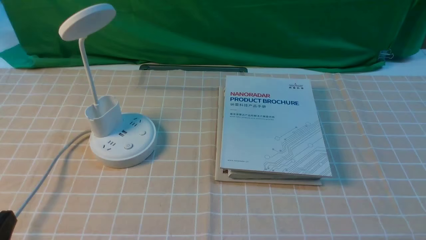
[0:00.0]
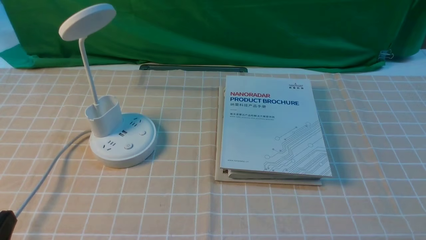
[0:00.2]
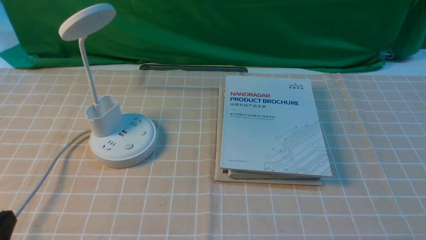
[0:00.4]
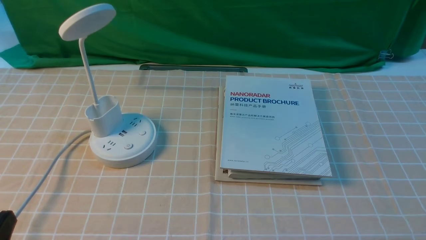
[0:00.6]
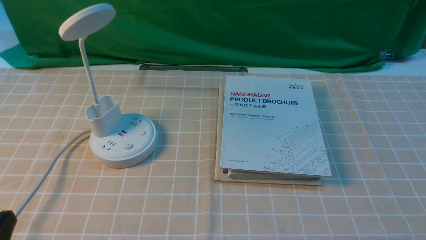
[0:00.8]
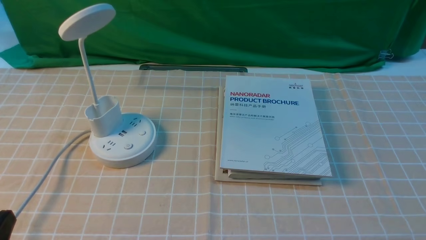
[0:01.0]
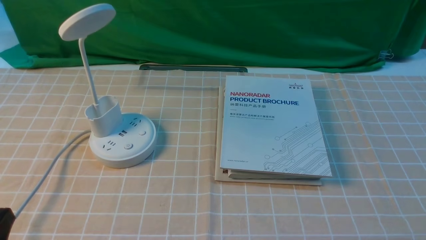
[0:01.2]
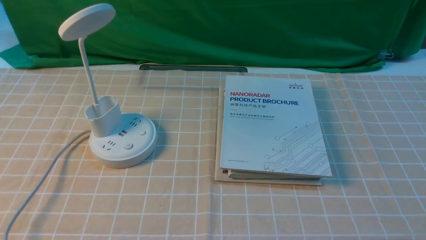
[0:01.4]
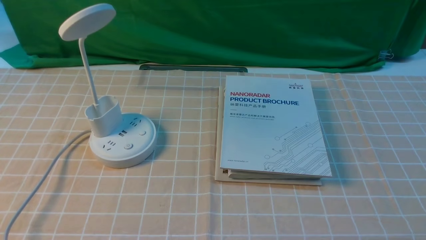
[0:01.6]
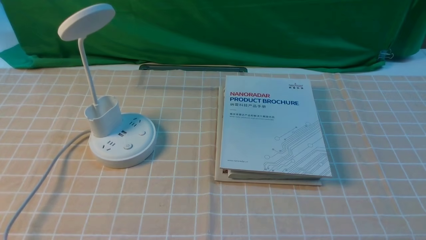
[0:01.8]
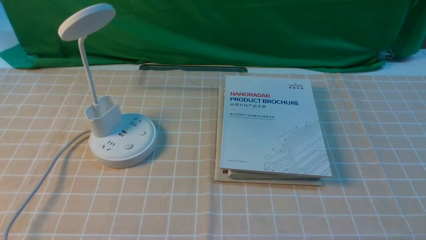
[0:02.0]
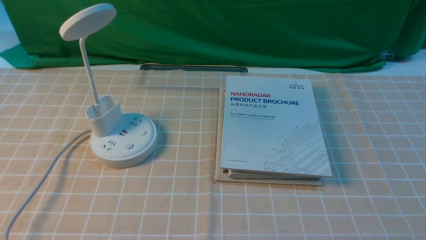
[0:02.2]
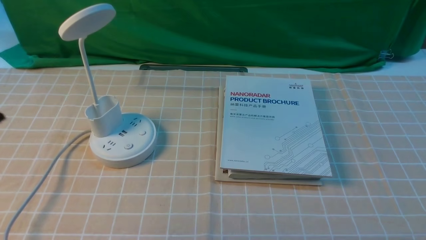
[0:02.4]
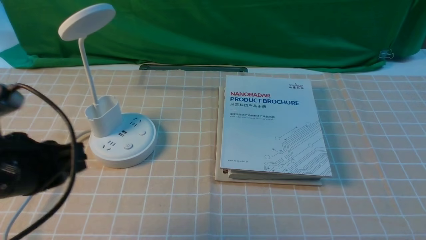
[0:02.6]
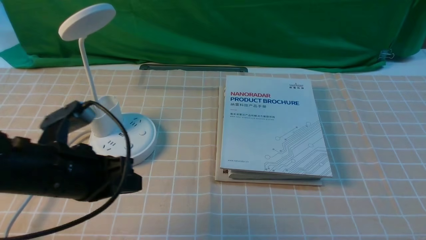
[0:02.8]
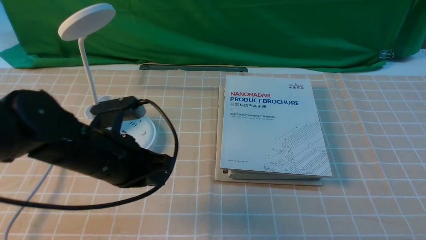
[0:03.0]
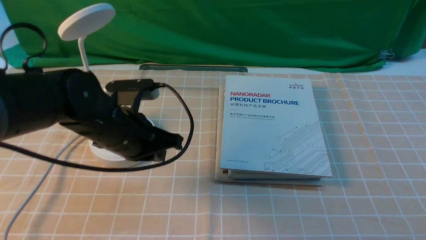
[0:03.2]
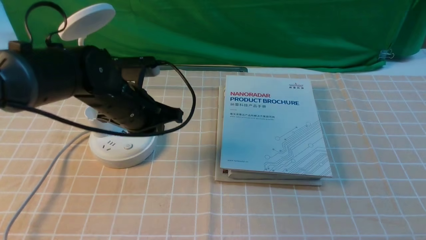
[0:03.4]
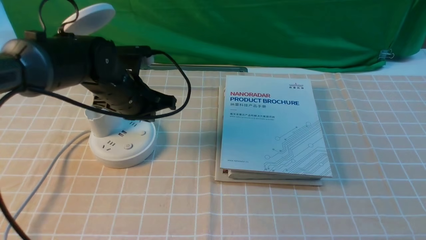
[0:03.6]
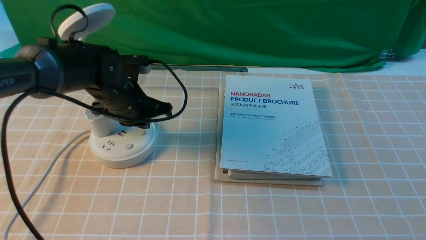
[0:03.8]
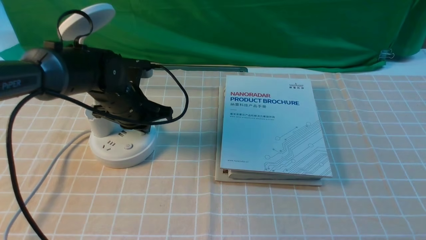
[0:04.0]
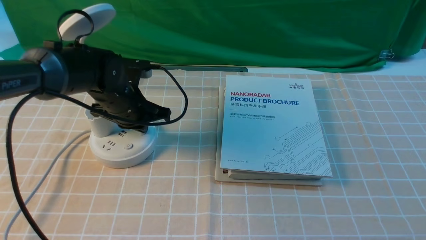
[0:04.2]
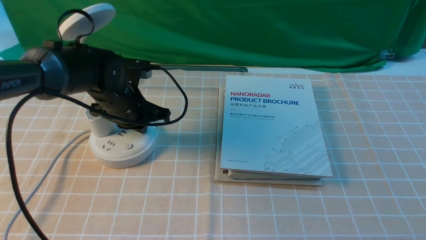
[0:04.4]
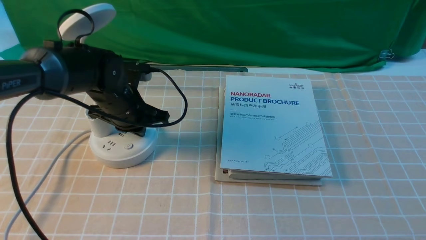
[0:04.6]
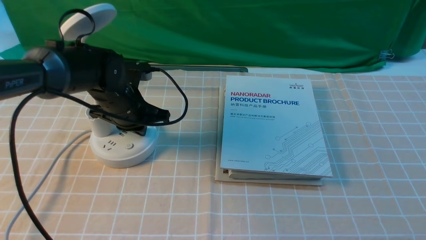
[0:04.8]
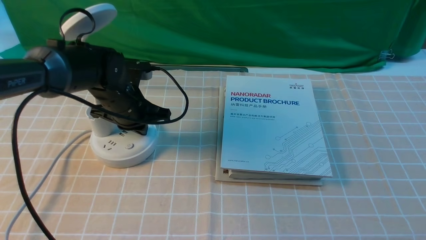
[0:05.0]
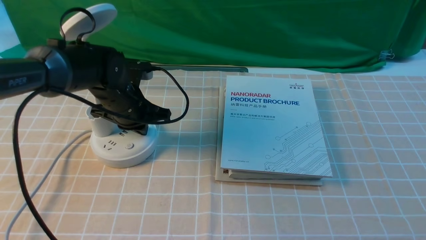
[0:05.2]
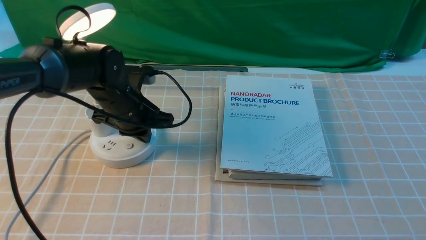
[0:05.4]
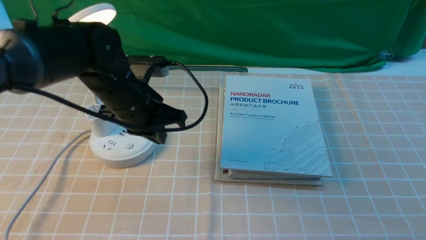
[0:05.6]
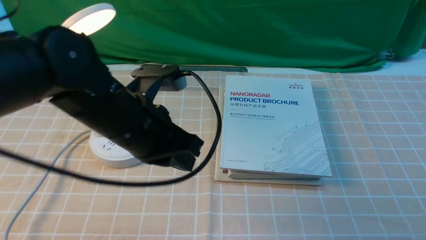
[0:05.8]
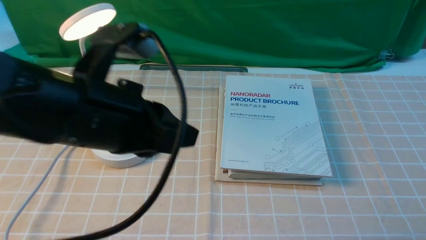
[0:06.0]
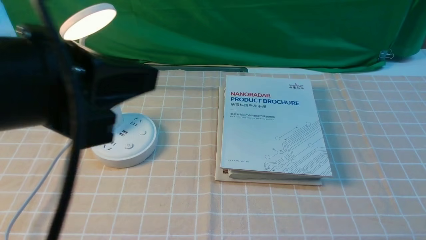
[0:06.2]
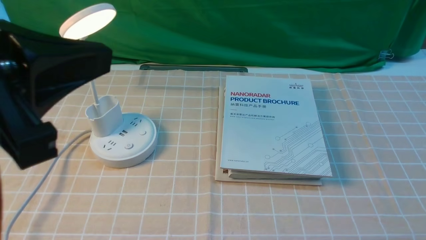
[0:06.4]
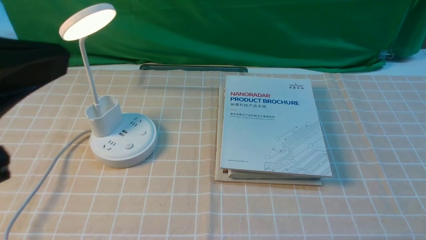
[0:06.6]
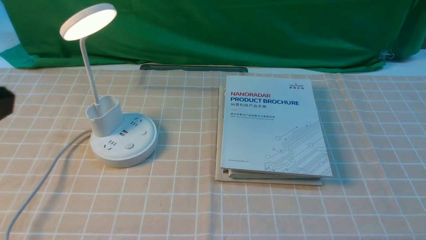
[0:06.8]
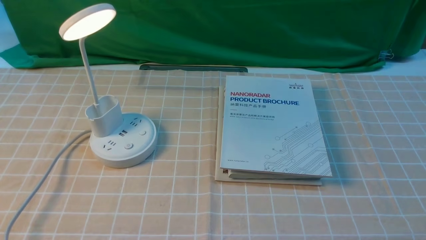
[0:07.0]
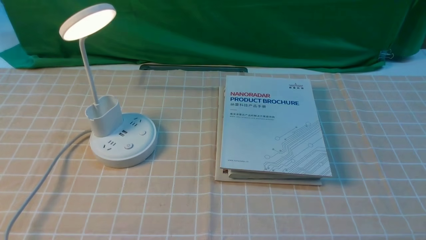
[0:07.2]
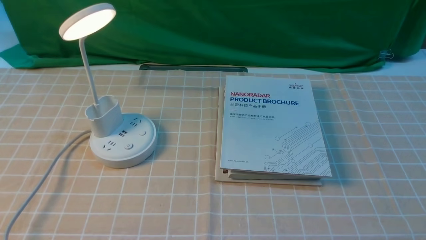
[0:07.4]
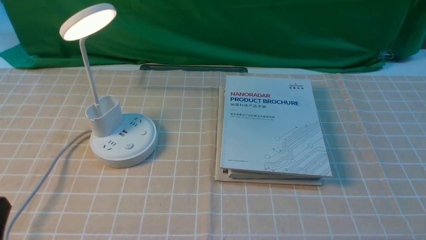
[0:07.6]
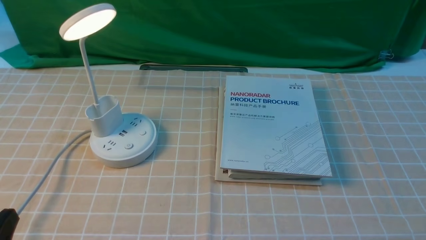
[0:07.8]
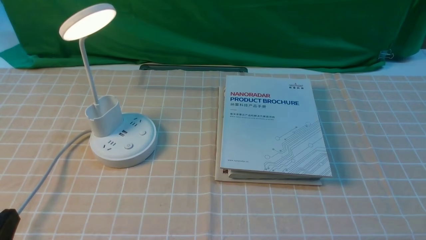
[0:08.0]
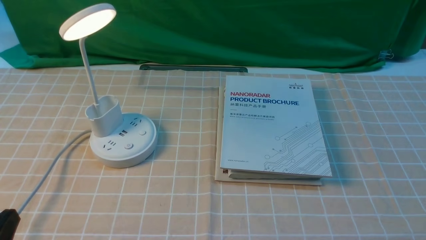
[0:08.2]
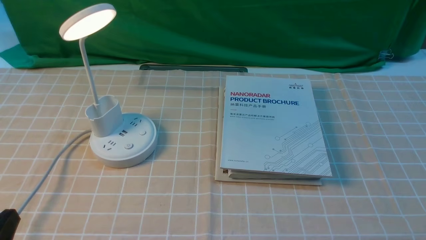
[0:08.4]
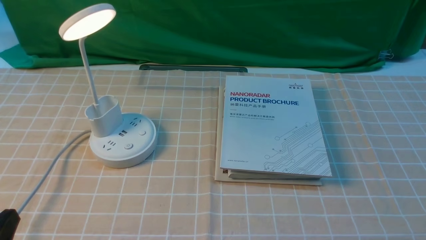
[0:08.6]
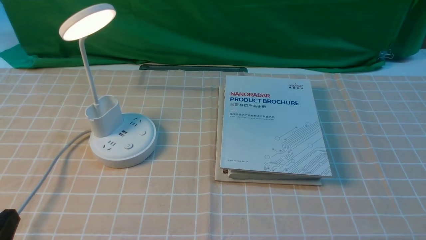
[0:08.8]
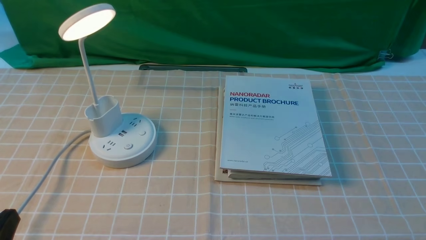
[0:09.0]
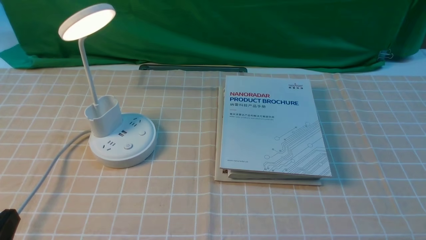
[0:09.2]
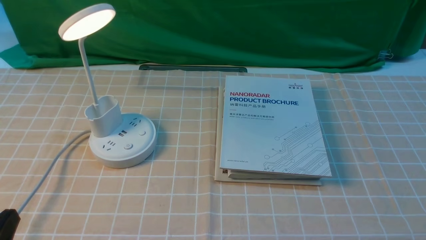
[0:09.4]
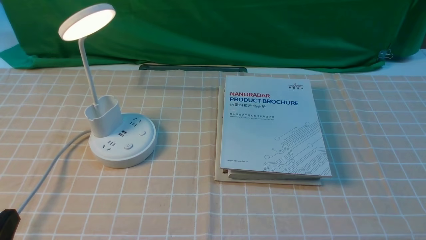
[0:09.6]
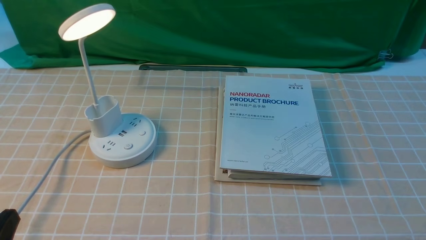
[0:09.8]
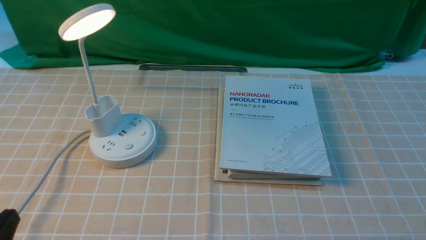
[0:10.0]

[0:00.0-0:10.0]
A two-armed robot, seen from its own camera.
Step, 0:00.0 to 0:05.6: use the left arm to press the button switch on the lamp holder.
0:01.4 to 0:02.8: The left gripper shifts roughly 20 cm forward and to the right, and closes its fingers.
0:02.8 to 0:04.2: The left gripper travels forward by approximately 15 cm.
0:04.2 to 0:05.8: The left gripper moves backward and upward, roughly 20 cm, and opens up.
0:05.8 to 0:07.2: The left gripper heads backward and to the left, covering some 25 cm.
0:08.6 to 0:10.0: Neither gripper changes place.

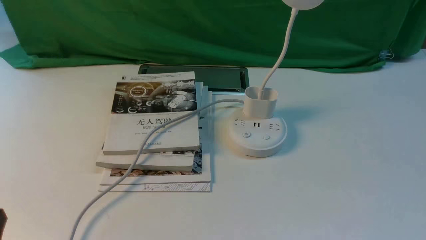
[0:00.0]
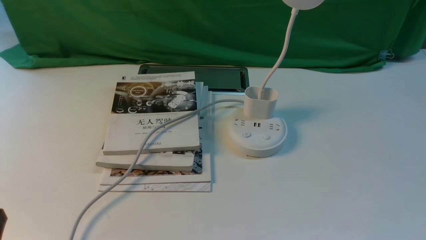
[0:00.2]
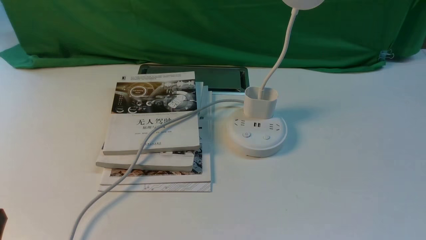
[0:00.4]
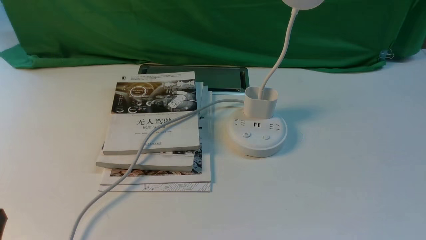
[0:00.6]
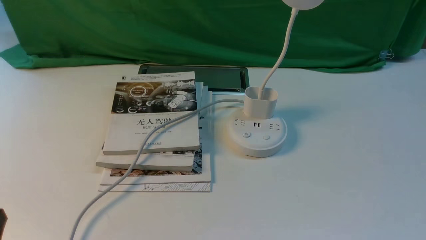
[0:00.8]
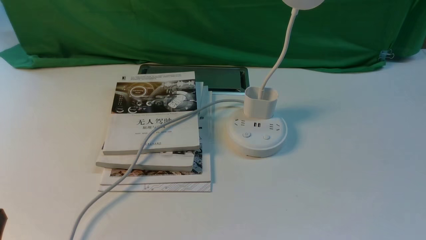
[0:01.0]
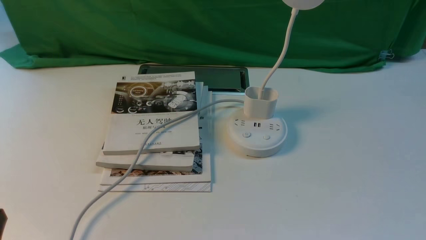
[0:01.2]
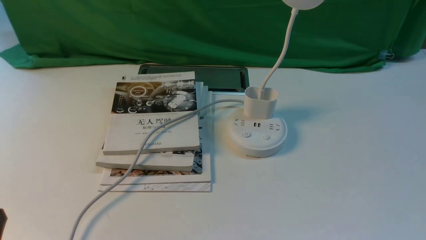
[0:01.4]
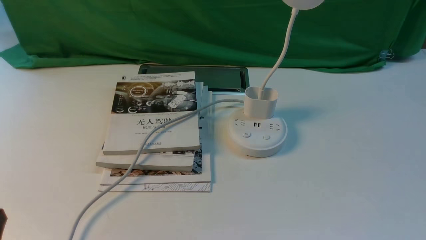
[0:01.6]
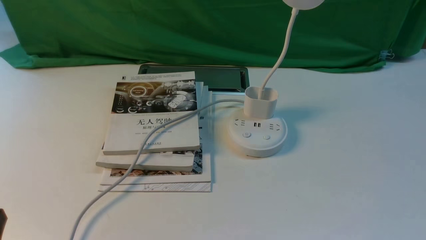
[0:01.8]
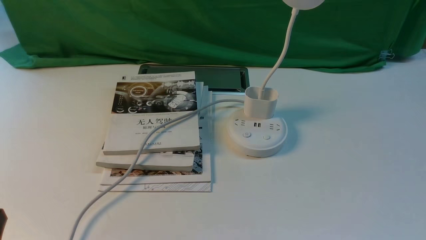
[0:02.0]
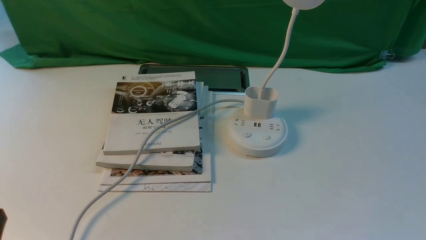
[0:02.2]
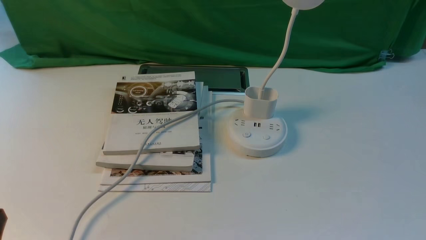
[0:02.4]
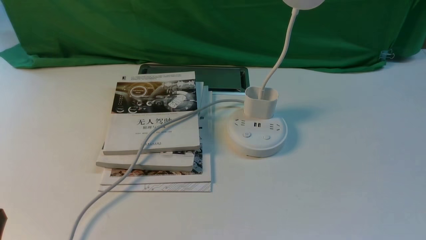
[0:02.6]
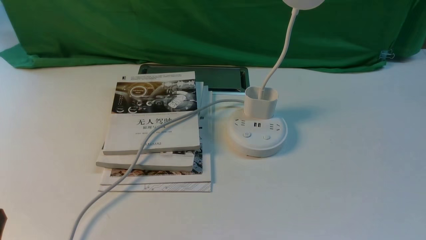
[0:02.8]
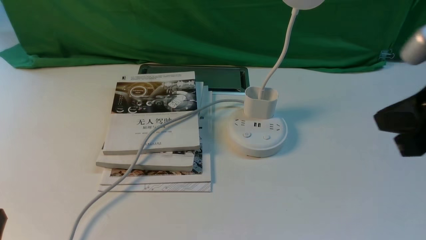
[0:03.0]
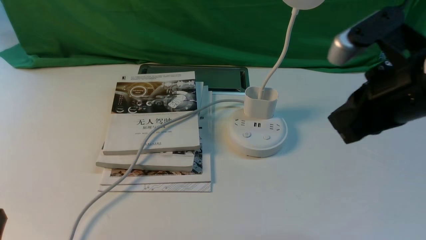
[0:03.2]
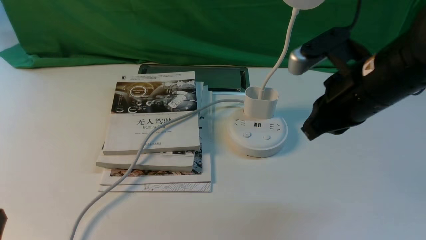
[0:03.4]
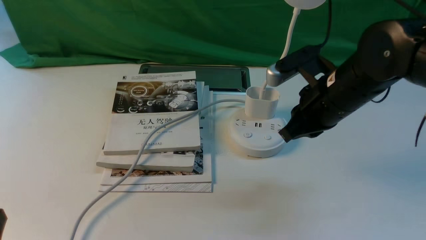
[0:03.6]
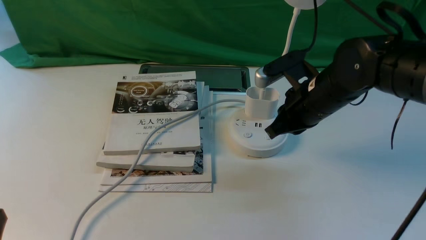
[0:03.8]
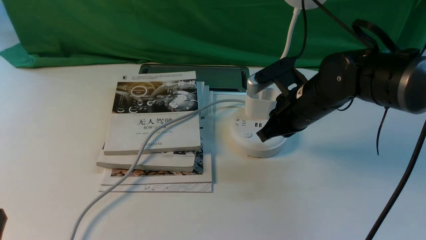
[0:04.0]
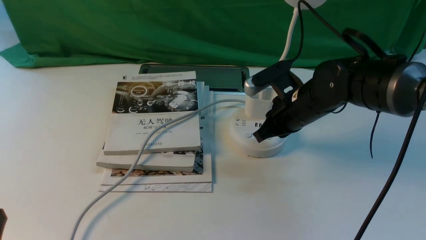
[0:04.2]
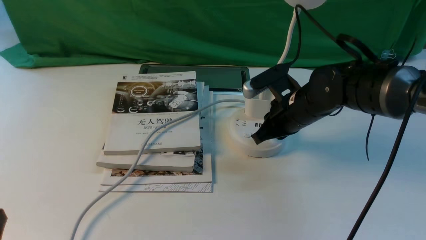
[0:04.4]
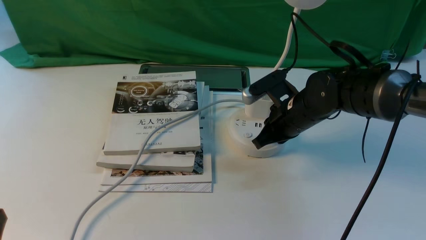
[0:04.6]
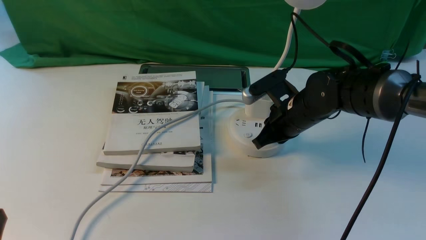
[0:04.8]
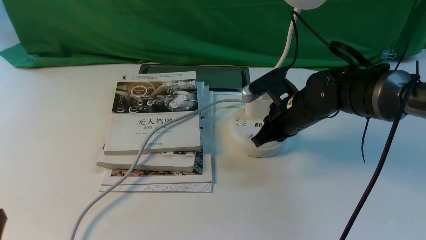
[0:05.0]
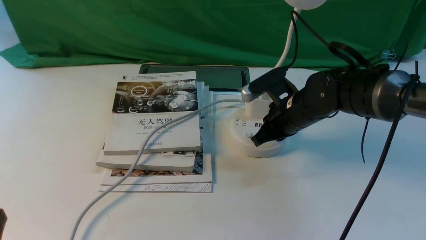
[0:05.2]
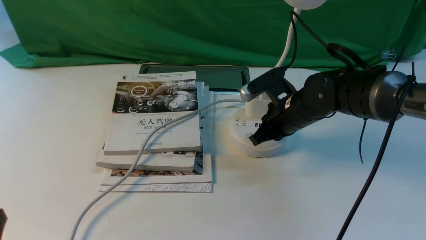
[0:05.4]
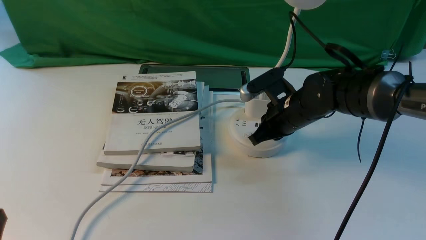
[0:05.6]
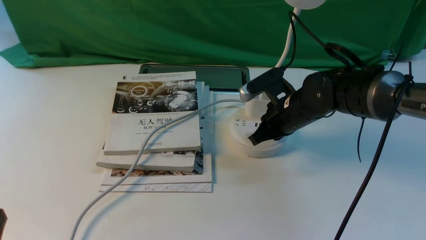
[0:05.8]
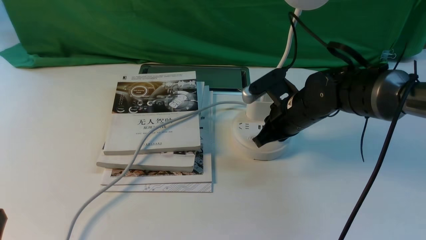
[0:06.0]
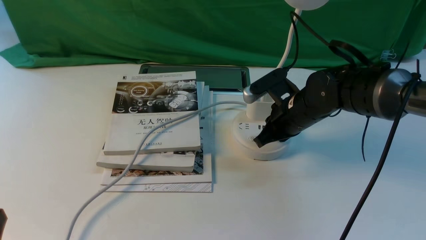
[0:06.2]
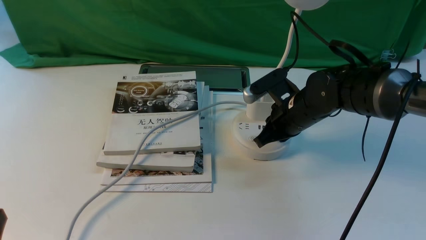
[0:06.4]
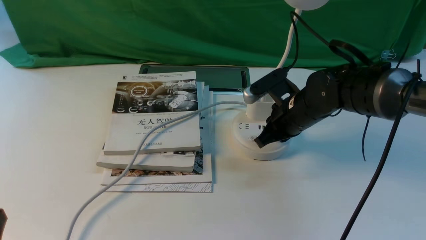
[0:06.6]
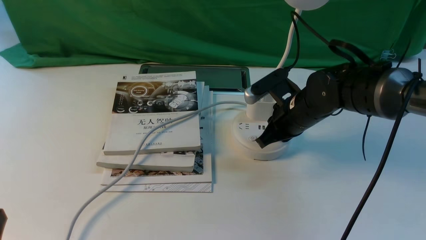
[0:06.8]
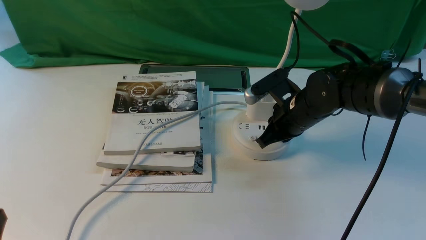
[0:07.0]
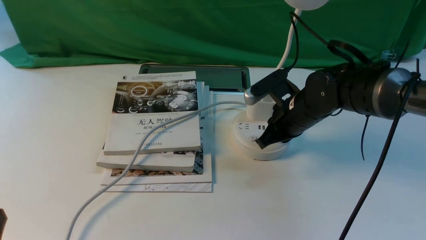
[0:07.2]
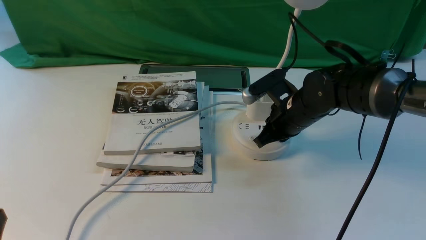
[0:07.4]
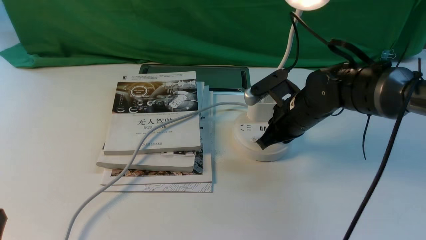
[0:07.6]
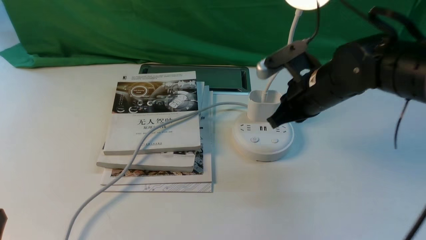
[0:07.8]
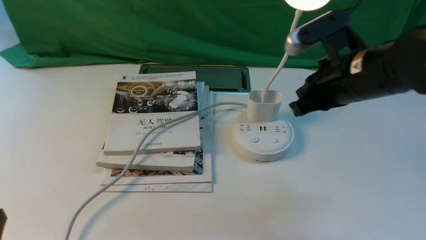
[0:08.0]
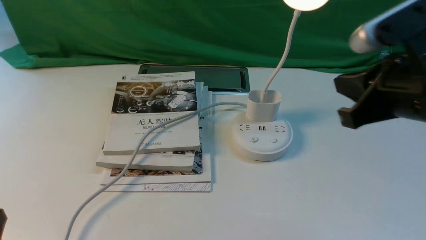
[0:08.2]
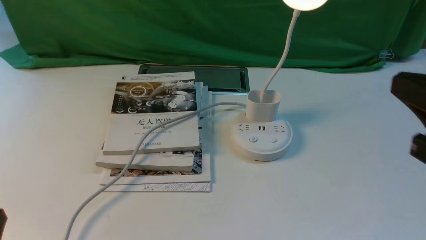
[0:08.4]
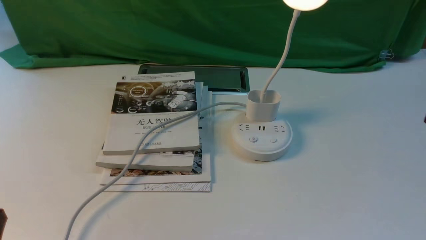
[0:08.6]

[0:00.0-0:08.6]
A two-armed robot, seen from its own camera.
Step, 0:00.0 to 0:07.6: use the right arm to press the button switch on the lamp holder.
0:02.8 to 0:04.4: The right gripper shifts some 35 cm forward, downward and to the left.
0:04.4 to 0:05.8: The grippers make only small movements.
0:05.8 to 0:07.2: Both grippers stay put.
0:07.2 to 0:08.6: The right gripper is displaced backward, upward and to the right by approximately 35 cm.
